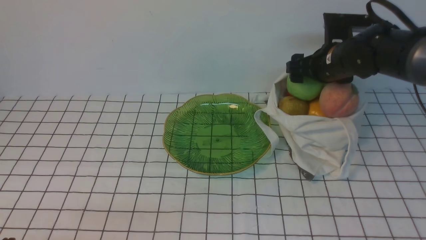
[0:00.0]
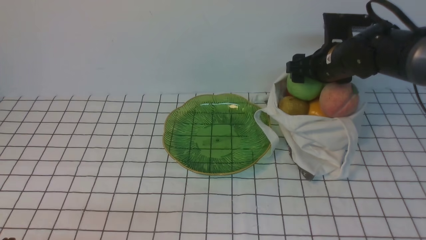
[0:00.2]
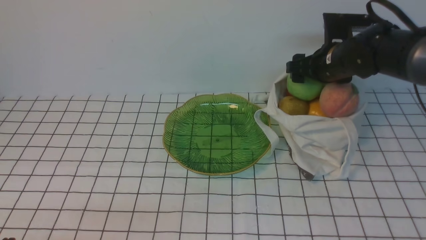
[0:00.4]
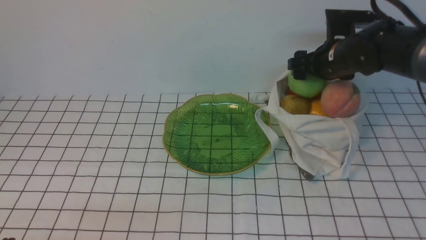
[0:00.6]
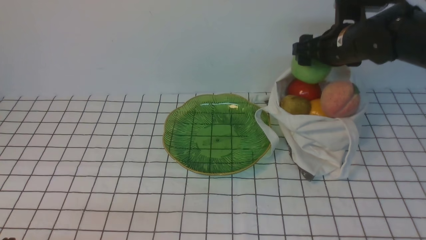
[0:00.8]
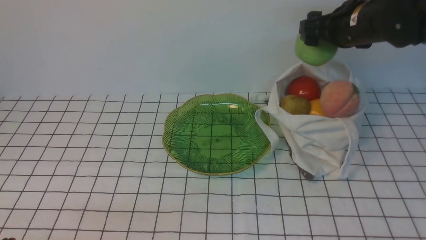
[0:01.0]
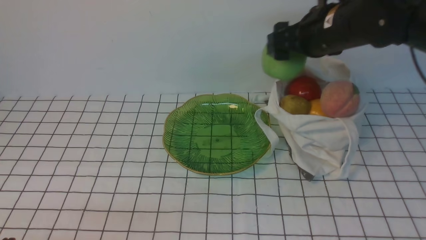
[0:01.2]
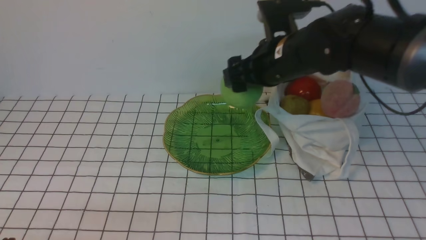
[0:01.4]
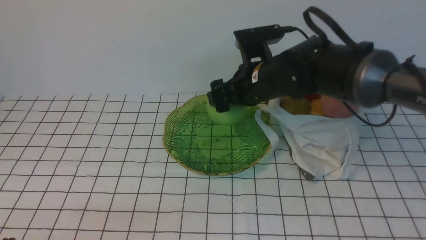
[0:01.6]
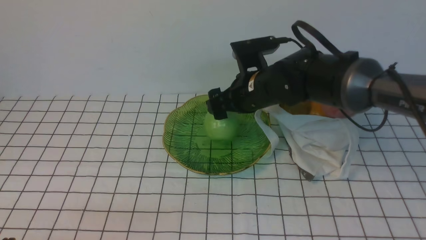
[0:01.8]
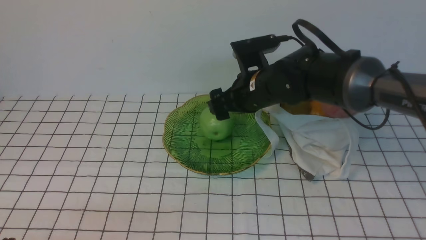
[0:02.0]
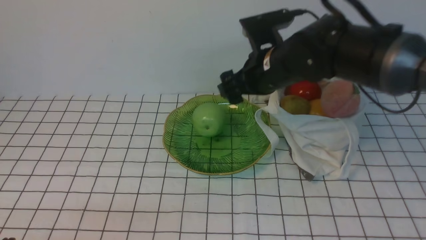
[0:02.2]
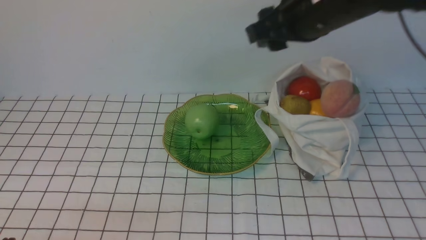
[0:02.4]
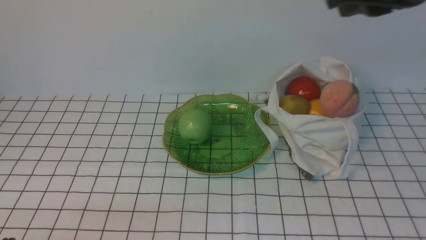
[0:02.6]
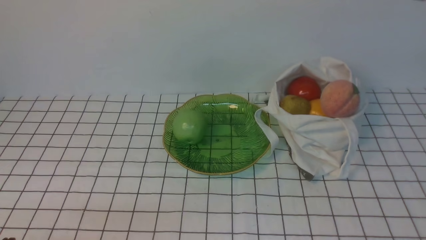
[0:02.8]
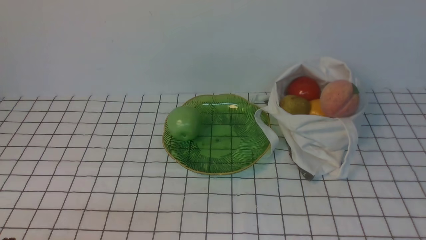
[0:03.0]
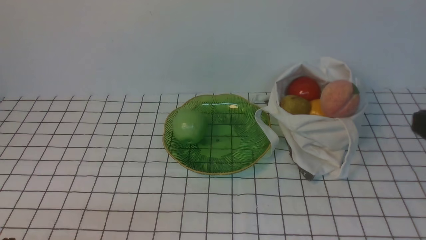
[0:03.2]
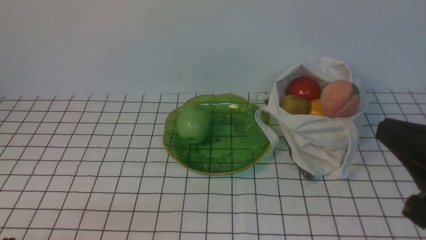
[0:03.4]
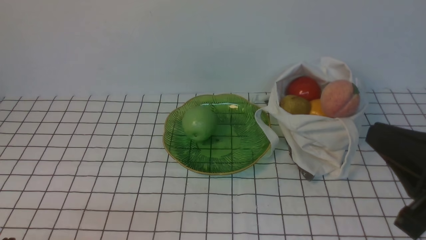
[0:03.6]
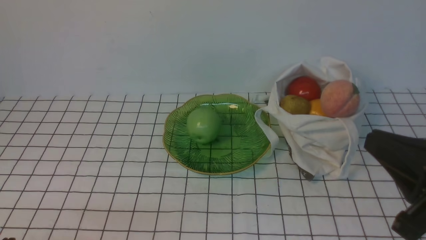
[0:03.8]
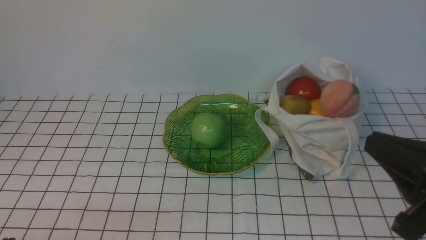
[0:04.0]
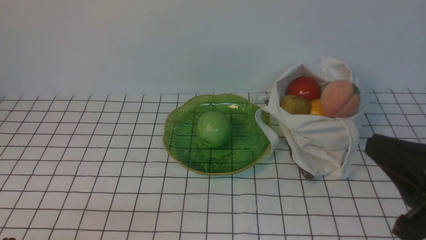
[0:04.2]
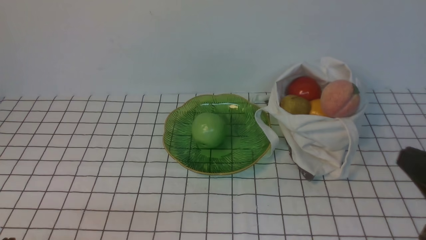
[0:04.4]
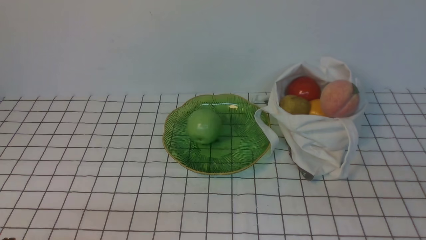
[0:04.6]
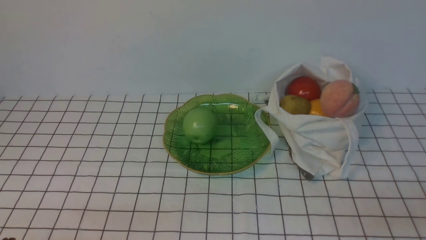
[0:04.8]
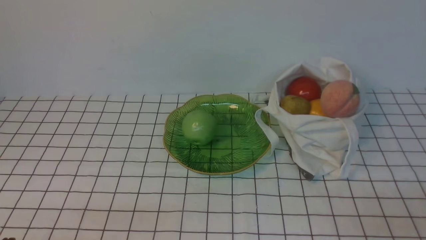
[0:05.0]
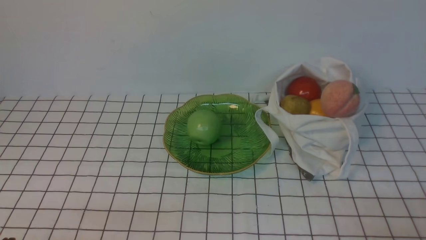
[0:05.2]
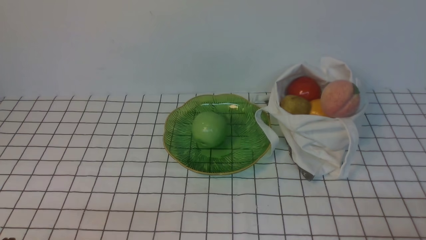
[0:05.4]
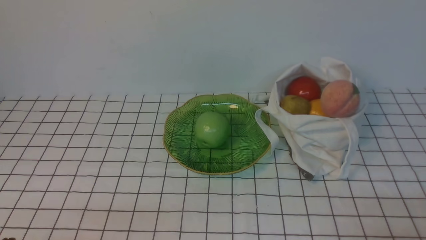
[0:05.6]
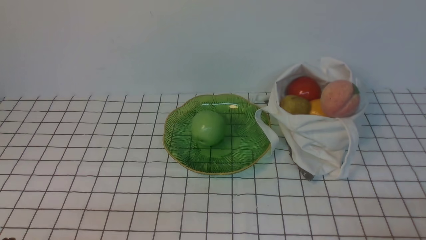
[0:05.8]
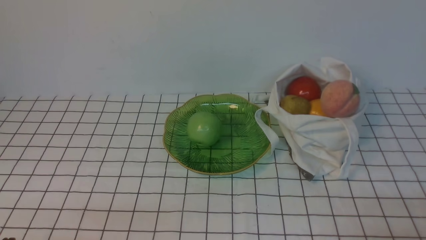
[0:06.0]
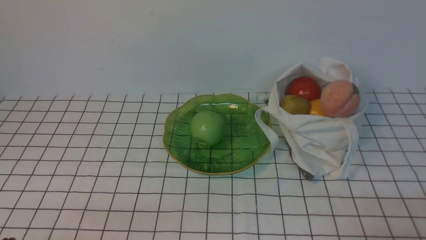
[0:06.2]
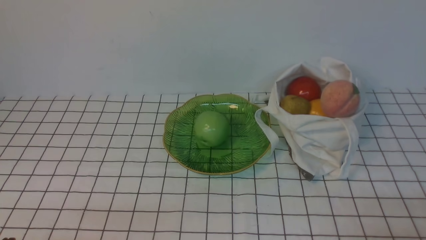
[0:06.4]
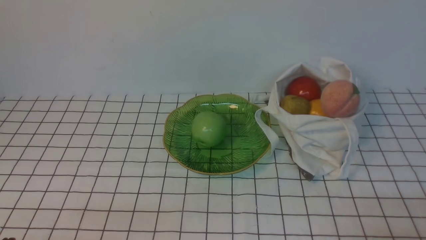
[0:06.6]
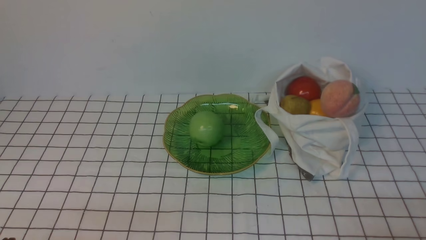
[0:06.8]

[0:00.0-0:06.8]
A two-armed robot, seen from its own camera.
Step, 0:01.0 to 0:02.0: use the right arm to put the apple into the empty plate on the left.
0:00.0 to 0:01.4: The right gripper is displaced to the left, upward and backward by about 15 cm.
0:01.4 to 0:02.8: The right gripper heads upward, backward and to the right, covering about 25 cm, and closes up.
0:02.8 to 0:04.0: The right gripper moves downward and backward, some 20 cm.
0:04.0 to 0:05.4: The right gripper heads downward, to the right and backward, covering about 15 cm.
0:05.4 to 0:06.8: Both grippers stay put.
